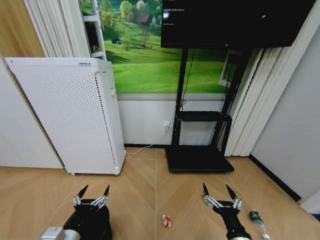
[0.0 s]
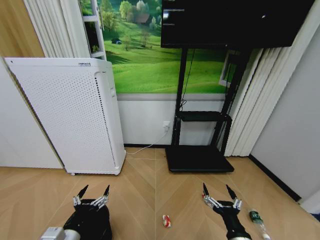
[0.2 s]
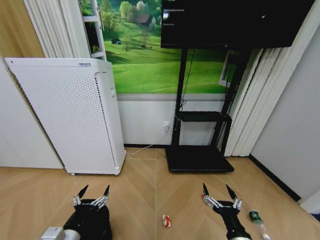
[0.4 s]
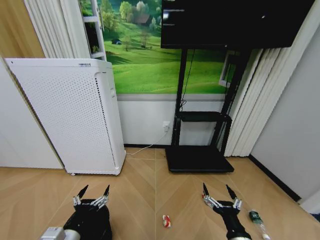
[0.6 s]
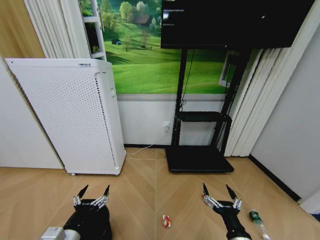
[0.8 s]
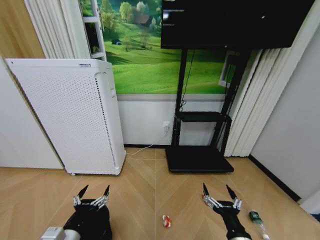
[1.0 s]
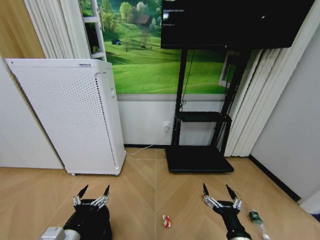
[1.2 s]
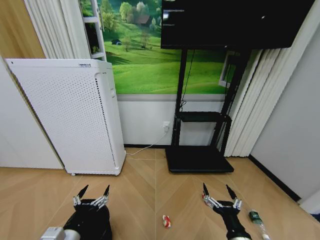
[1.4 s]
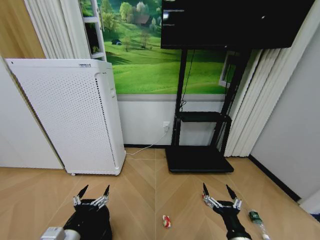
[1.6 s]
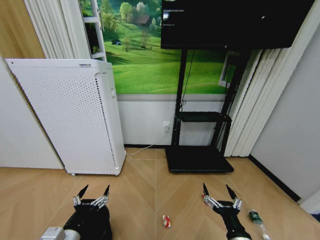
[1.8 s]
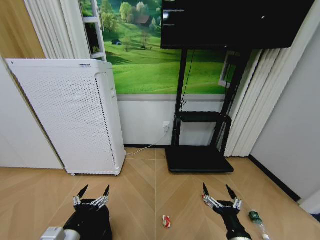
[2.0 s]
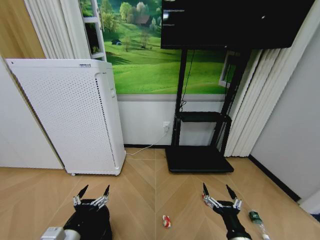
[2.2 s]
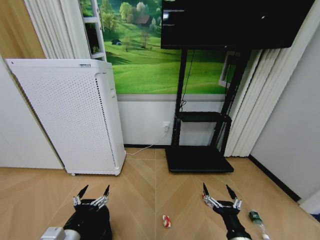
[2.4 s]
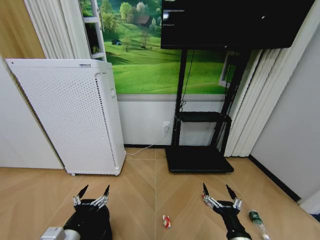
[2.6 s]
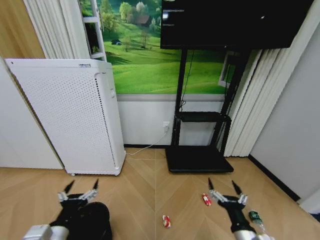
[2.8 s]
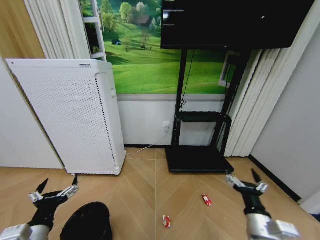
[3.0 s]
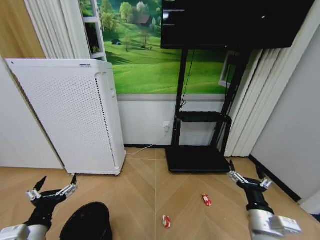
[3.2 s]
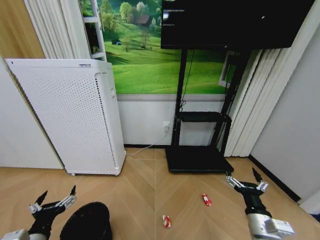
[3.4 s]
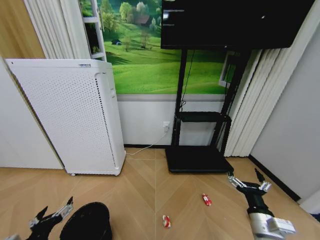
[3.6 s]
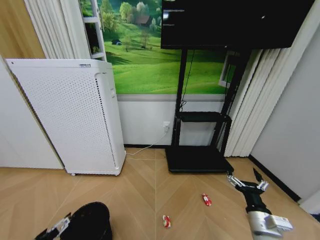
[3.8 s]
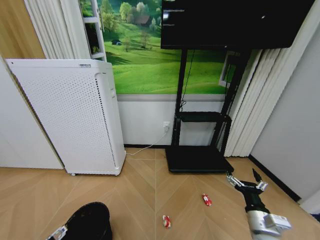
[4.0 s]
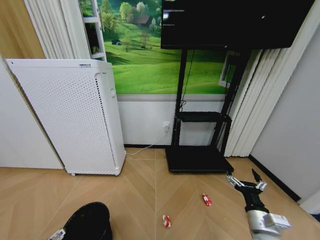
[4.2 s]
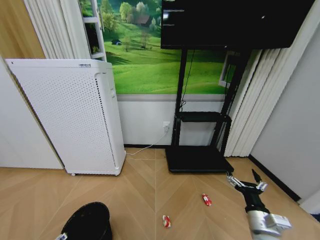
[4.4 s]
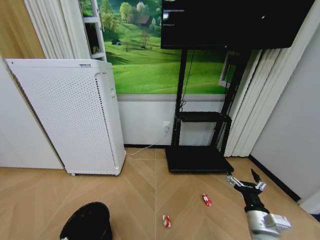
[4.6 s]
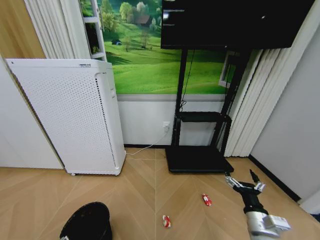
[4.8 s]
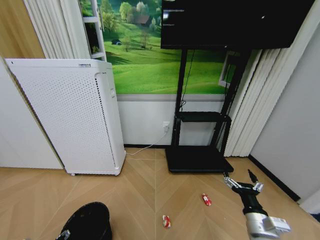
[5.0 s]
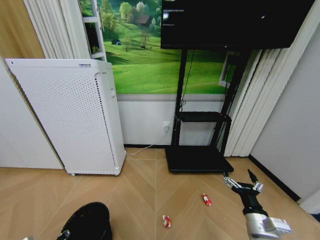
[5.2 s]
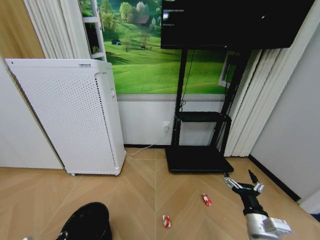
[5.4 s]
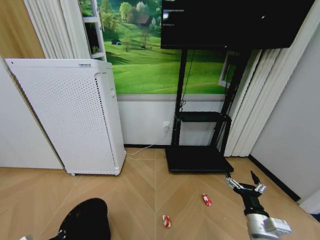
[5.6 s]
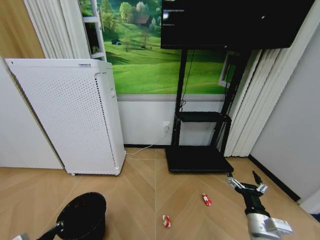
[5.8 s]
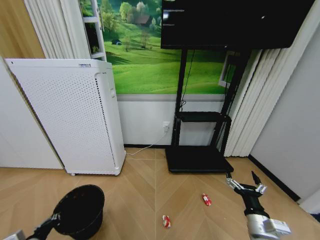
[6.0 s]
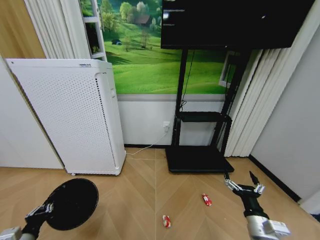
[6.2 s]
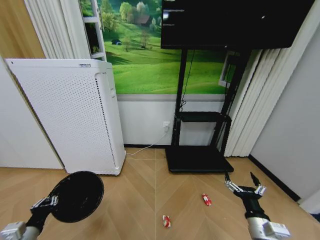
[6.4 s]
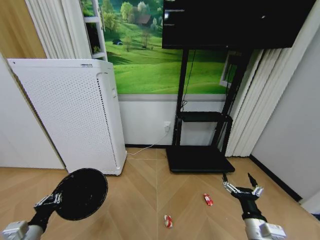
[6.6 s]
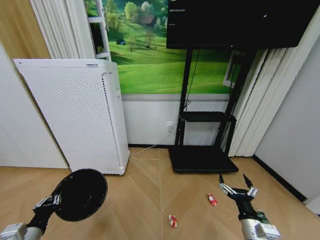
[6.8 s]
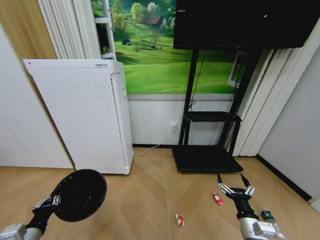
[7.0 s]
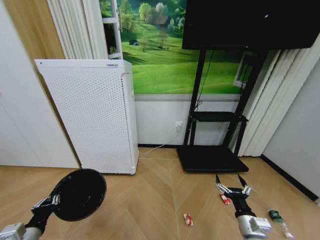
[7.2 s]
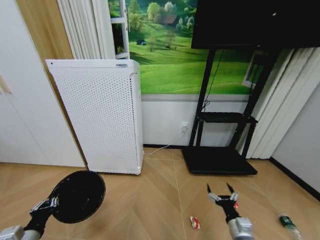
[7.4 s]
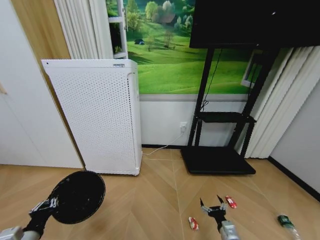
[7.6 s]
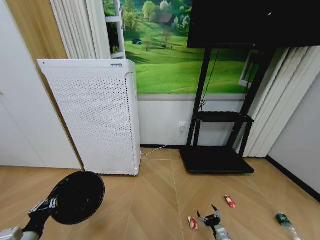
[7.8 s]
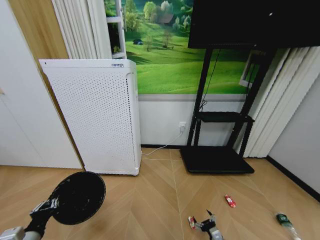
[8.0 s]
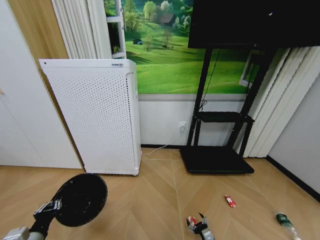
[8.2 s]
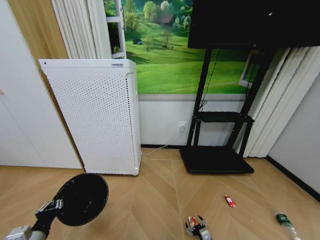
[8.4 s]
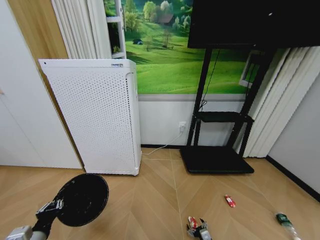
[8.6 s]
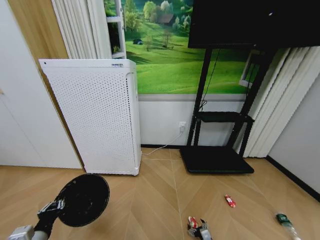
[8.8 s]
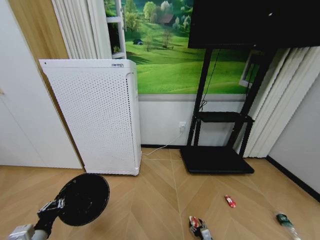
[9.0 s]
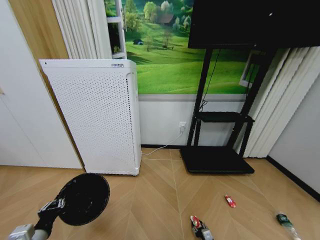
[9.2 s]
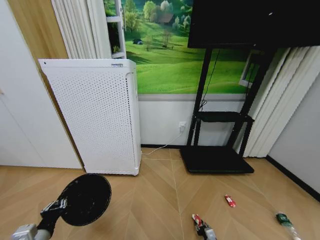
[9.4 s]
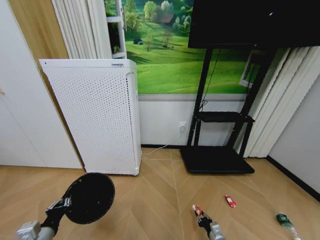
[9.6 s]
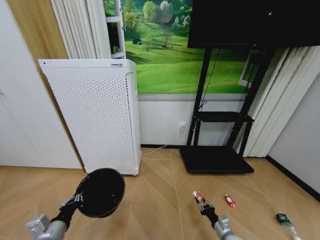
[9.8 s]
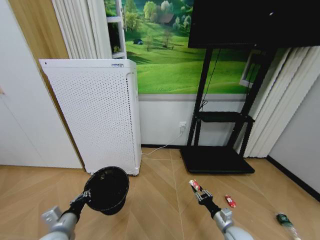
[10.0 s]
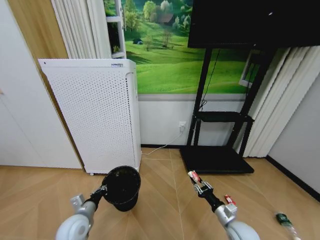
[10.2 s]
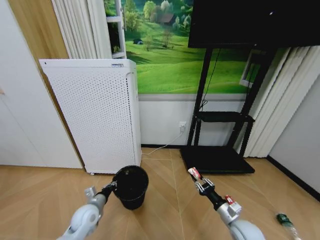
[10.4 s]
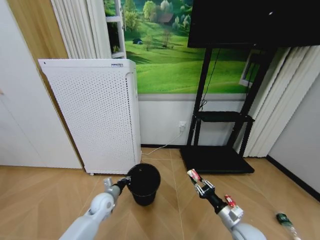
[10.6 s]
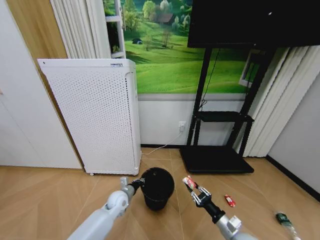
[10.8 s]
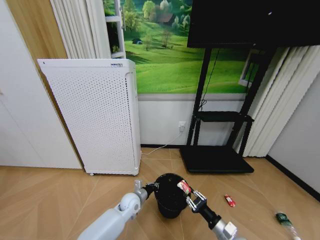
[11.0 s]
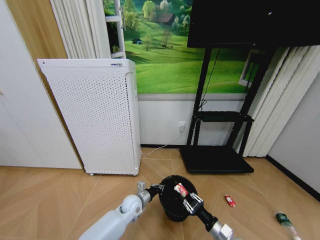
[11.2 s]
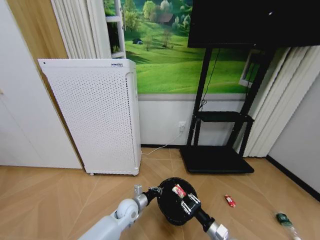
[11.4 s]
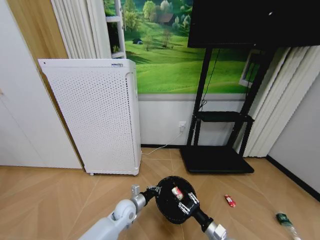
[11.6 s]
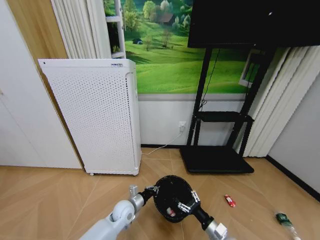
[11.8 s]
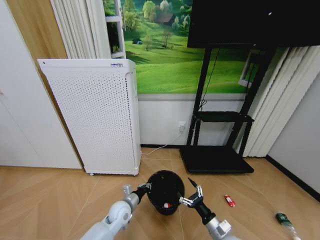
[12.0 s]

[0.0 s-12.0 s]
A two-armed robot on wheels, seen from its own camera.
Task of the whole recording: Pick up the trash bin and place the garbage on the floor into it.
0.0 to 1.6 s: Both grippers stay put.
1.6 to 3.0 s: The left gripper moves approximately 5 cm, while the right gripper moves to the right, some 5 cm.
3.0 to 4.4 s: The right gripper ends up some 5 cm from where it was, while the left gripper travels to the left and downward by roughly 10 cm.
4.4 to 6.0 s: The left gripper shifts roughly 5 cm downward, and closes up.
6.0 to 7.6 s: The right gripper heads downward, covering some 15 cm, while the left gripper moves some 5 cm.
7.6 to 9.0 s: The right gripper heads downward, covering approximately 15 cm.
9.0 to 10.4 s: The right gripper is displaced upward by about 25 cm, and closes up. The left gripper is displaced forward, to the right and downward by some 15 cm.
10.4 to 12.0 s: The right gripper is displaced to the left by roughly 5 cm, and opens up. Meanwhile the left gripper goes roughly 15 cm to the right.

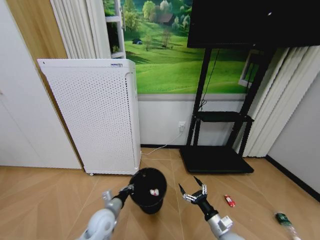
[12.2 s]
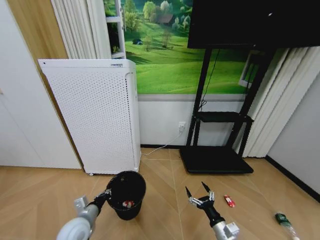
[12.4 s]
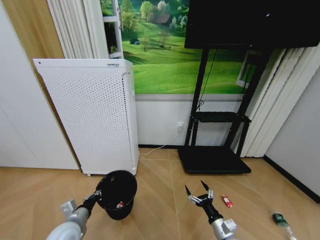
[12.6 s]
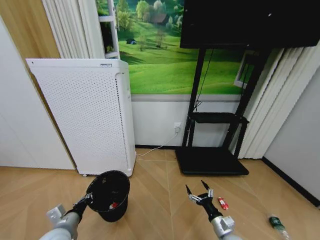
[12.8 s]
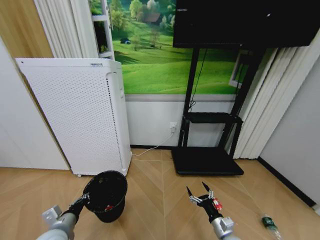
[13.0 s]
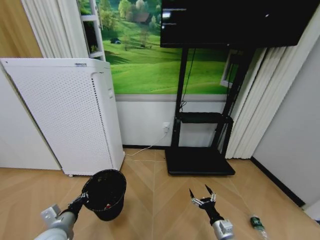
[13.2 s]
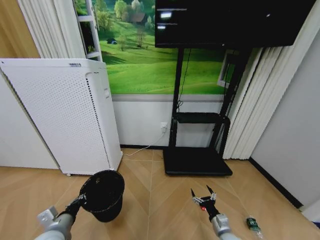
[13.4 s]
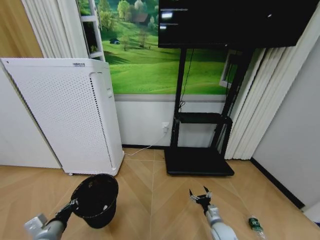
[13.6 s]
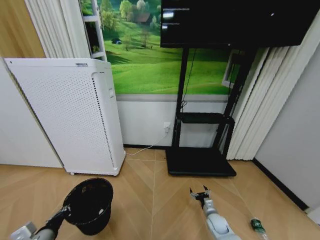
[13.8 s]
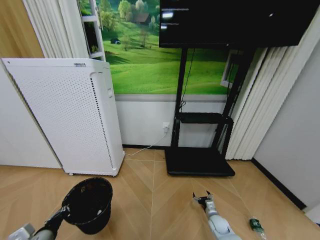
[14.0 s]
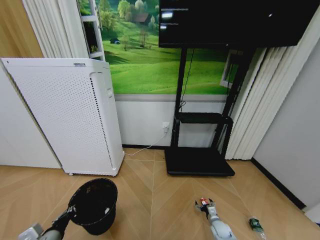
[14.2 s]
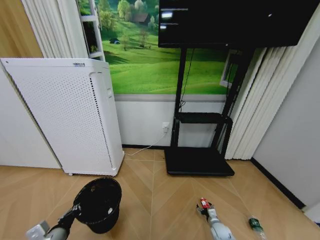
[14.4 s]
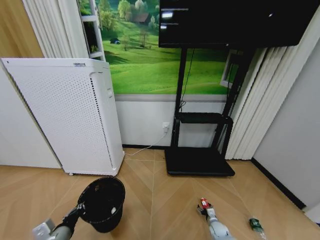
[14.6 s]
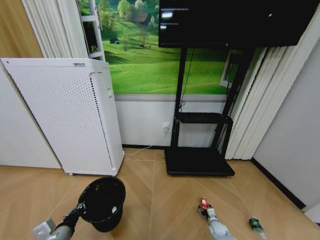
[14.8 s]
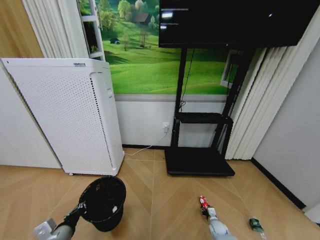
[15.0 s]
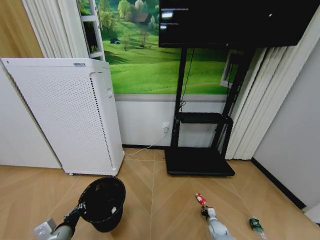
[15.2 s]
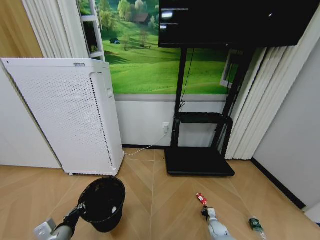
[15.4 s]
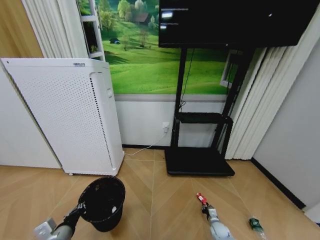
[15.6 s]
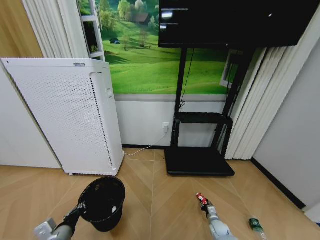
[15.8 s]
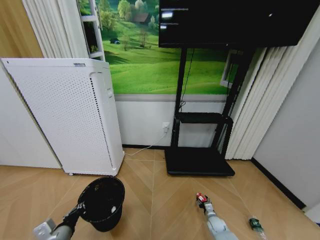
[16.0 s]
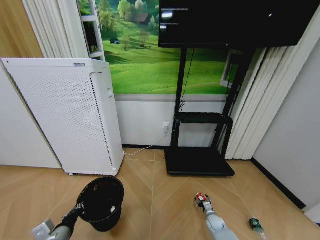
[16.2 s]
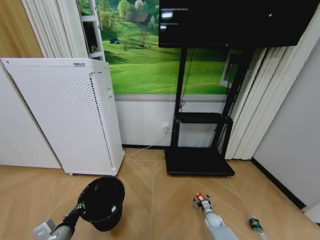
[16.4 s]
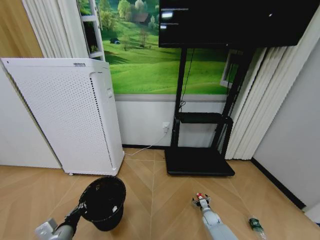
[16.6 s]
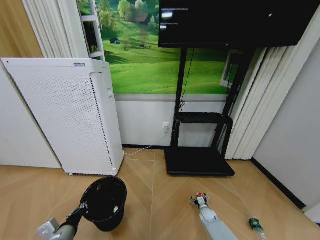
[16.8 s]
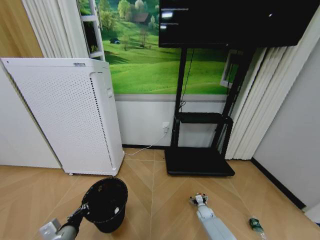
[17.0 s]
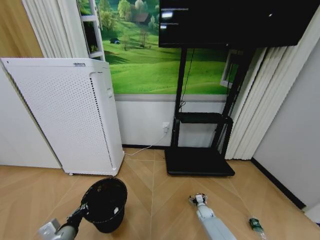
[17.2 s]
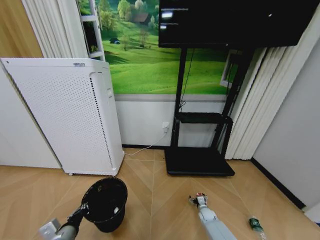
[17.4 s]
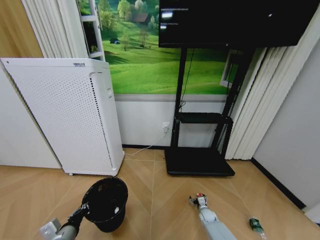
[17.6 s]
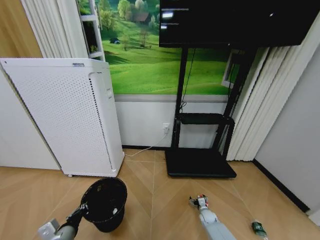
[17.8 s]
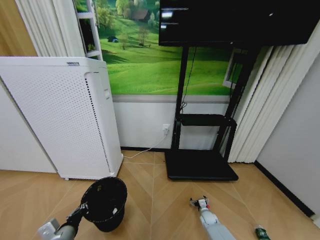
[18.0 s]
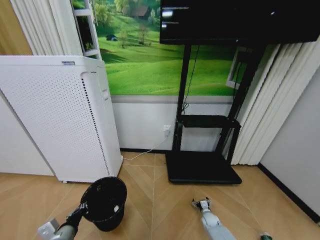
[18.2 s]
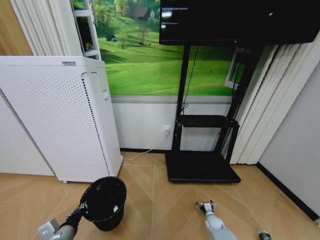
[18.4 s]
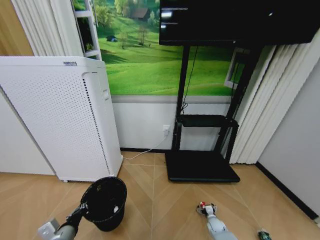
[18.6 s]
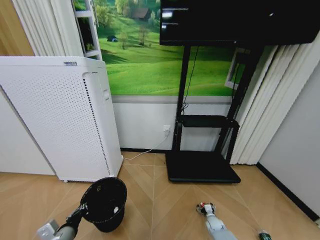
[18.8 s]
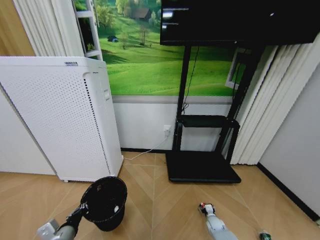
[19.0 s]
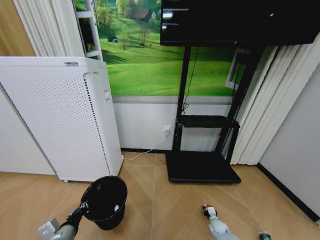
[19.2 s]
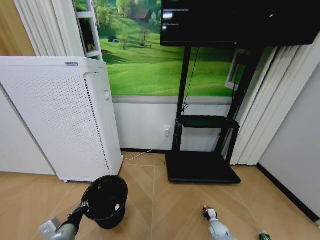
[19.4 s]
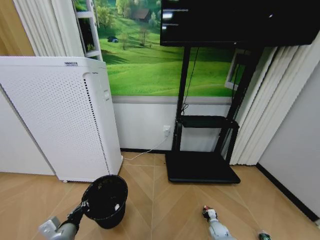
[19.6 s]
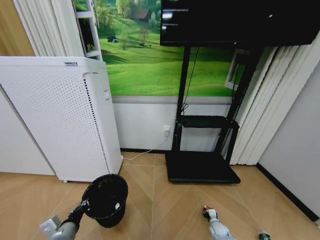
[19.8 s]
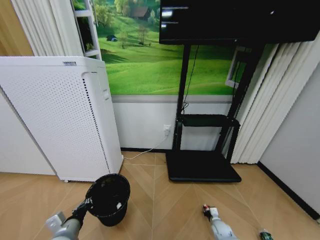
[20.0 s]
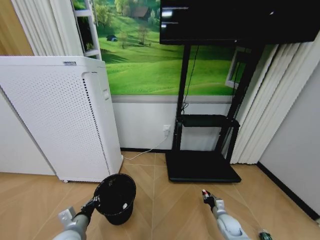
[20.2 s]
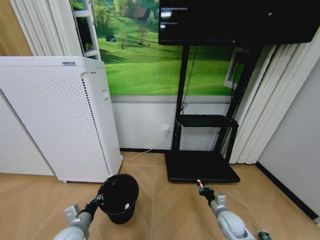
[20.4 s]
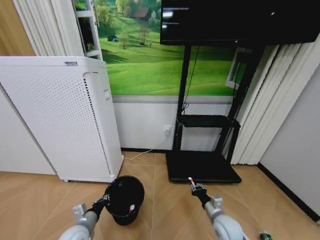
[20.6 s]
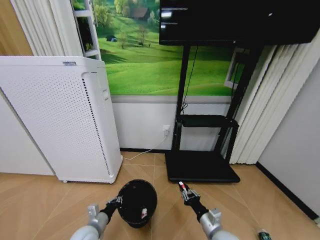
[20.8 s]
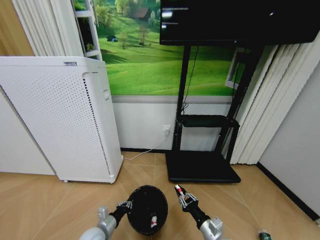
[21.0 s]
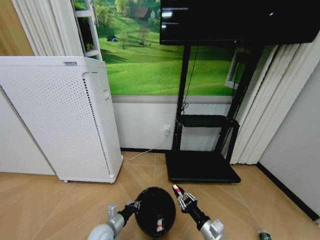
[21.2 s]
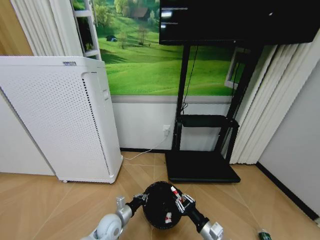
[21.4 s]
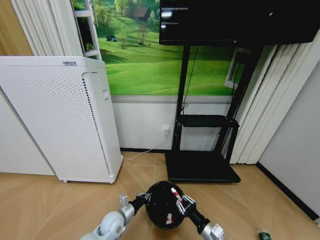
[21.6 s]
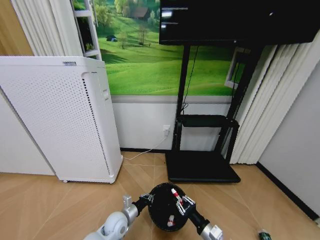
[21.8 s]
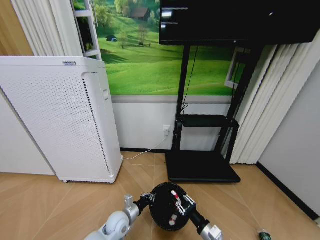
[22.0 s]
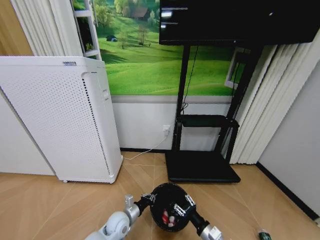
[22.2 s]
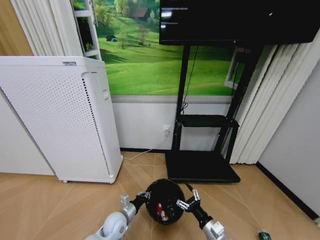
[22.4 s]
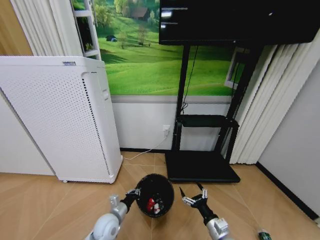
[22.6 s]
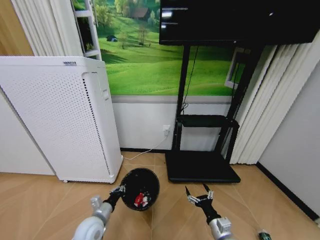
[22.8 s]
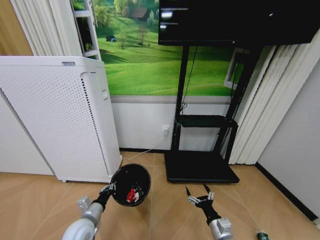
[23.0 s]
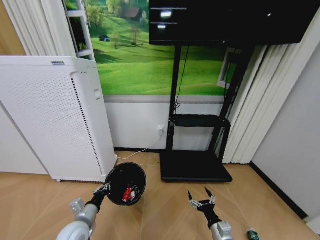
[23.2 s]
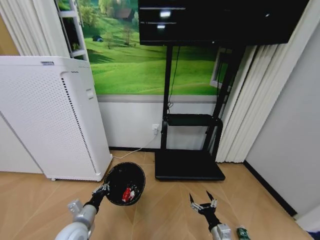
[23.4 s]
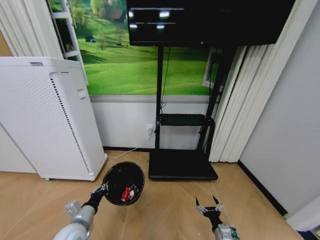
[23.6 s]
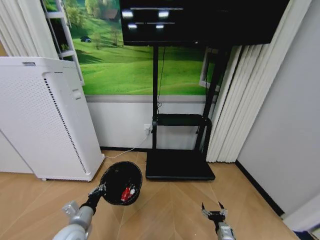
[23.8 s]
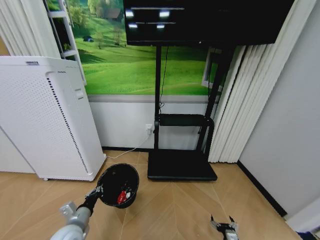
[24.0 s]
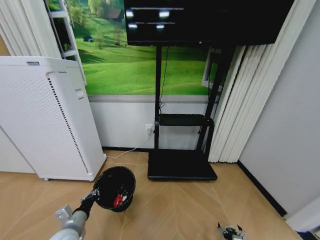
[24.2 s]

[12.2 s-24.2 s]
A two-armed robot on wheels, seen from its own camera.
Task of the whole recording: Pick up the trash bin and place the garbage on the floor into it.
12.2 to 13.8 s: The left gripper shifts about 20 cm to the left and backward, while the right gripper travels downward and forward by some 15 cm.
13.8 to 15.2 s: The right gripper moves downward, about 10 cm, and closes up.
15.2 to 16.6 s: The right gripper changes place by some 5 cm, and opens up.
18.2 to 19.8 s: The right gripper changes place by some 5 cm, and closes.
19.8 to 21.2 s: The right gripper goes roughly 30 cm upward, backward and to the left. Meanwhile the left gripper travels downward, to the right and forward by roughly 15 cm.
21.2 to 22.6 s: The right gripper opens up.
22.6 to 24.2 s: The right gripper moves downward and to the right, approximately 20 cm. Meanwhile the left gripper goes approximately 15 cm to the left, backward and upward.
